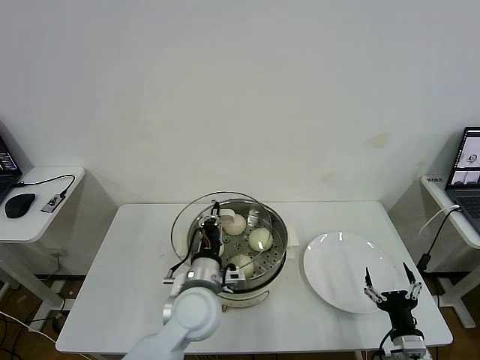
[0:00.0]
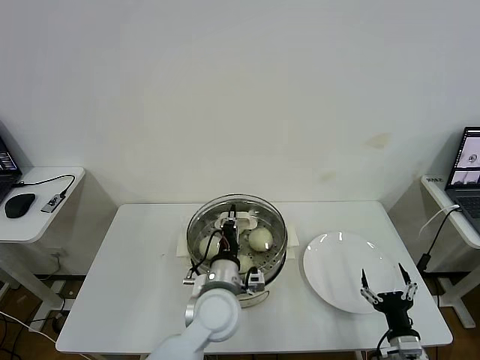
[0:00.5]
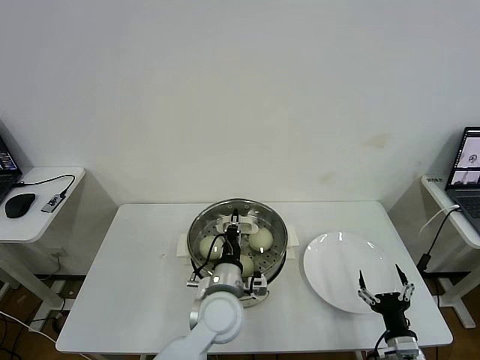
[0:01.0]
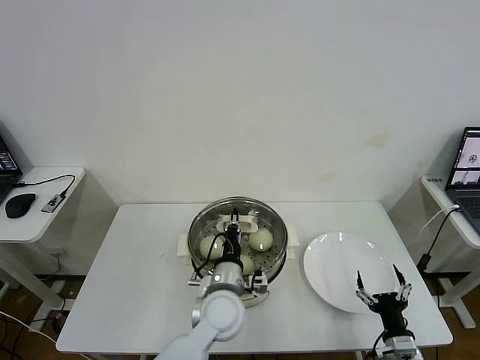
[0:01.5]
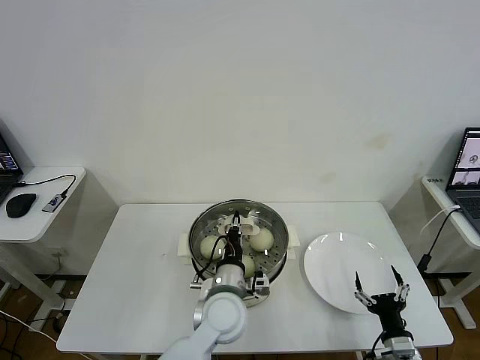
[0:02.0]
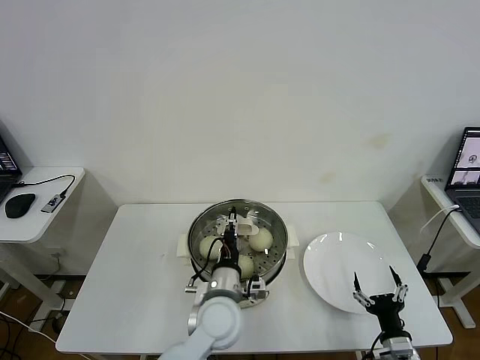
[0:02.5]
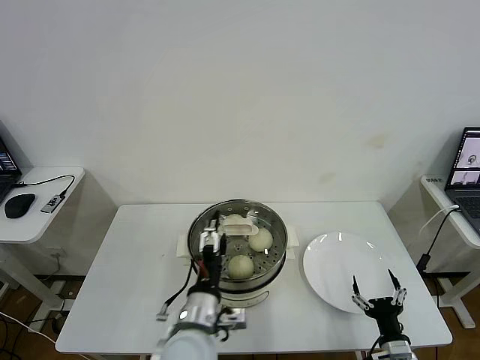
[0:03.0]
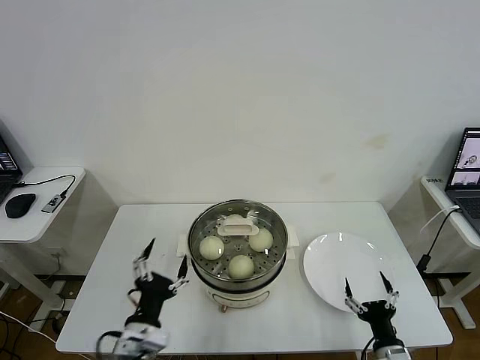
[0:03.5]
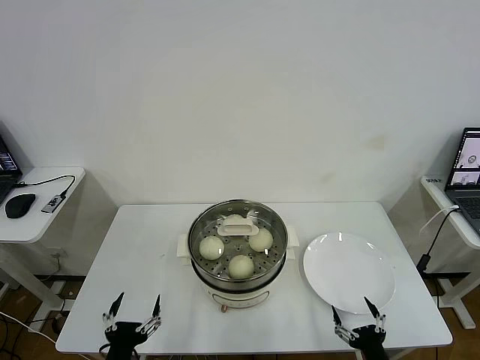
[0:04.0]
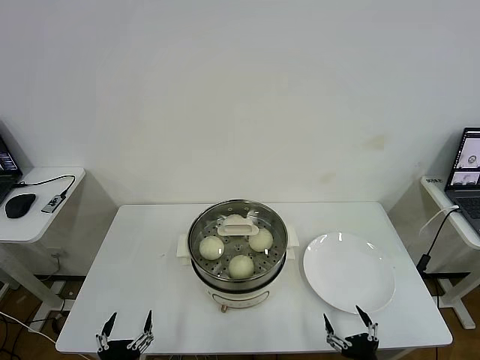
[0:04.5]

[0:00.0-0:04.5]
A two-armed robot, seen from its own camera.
Task of the whole recording: take steamed baozi put them in steamer then cover it.
Step, 0:00.0 to 0:03.0: Place the pot lid on the steamer with left gripper.
0:00.0 to 0:02.0: The left gripper goes roughly 5 cm to the right.
0:02.0 to 0:04.5: The right gripper heads backward, covering some 5 cm. Meanwhile the left gripper travels to the left and backward by some 30 cm, and opens its fingers.

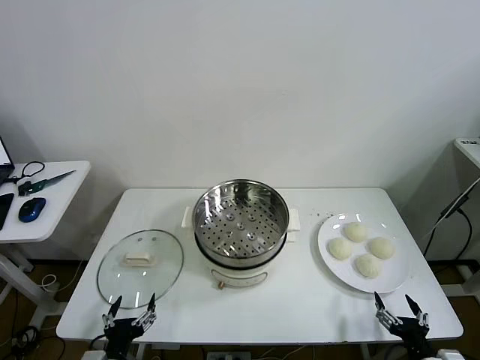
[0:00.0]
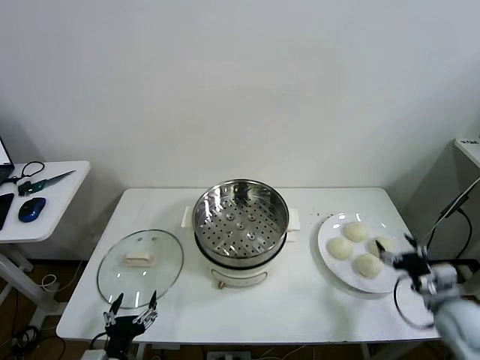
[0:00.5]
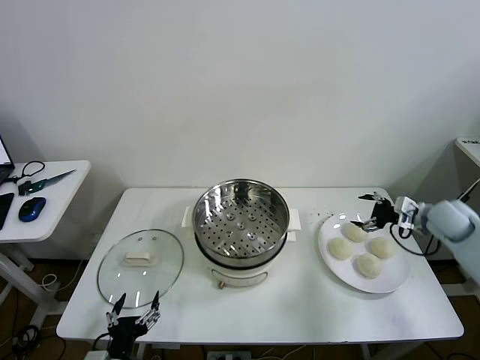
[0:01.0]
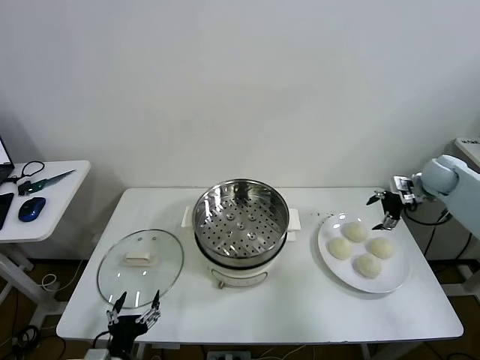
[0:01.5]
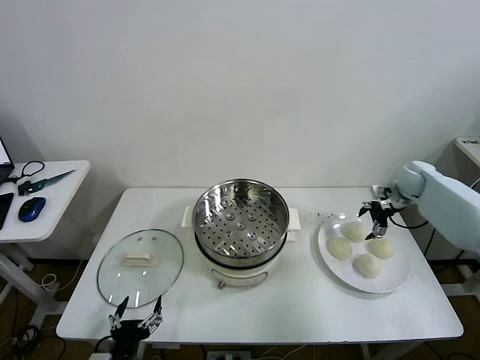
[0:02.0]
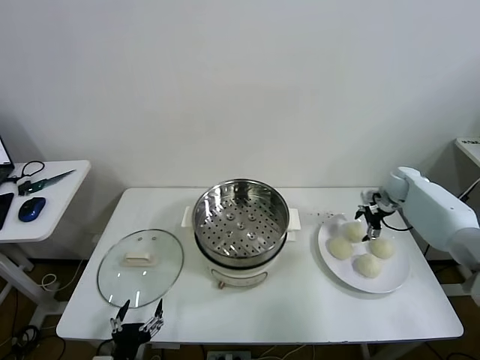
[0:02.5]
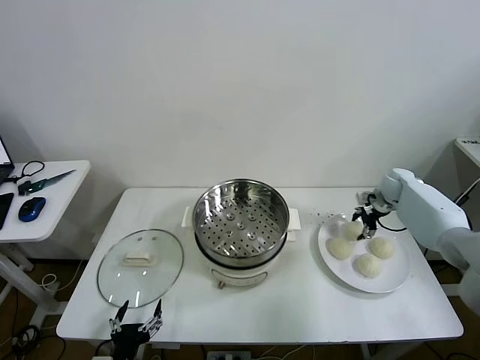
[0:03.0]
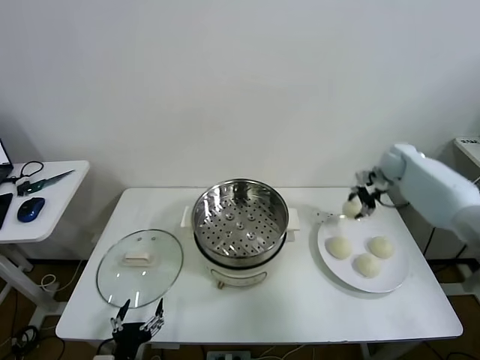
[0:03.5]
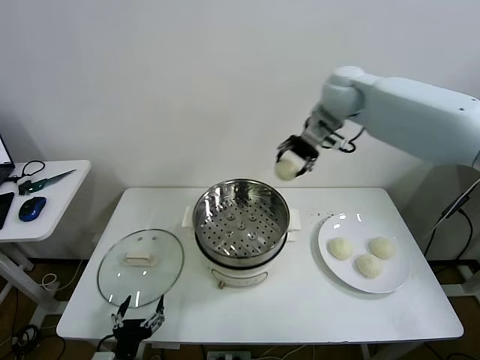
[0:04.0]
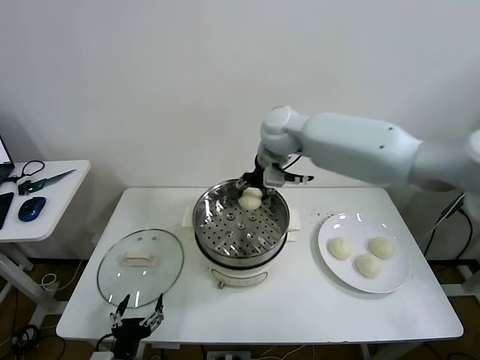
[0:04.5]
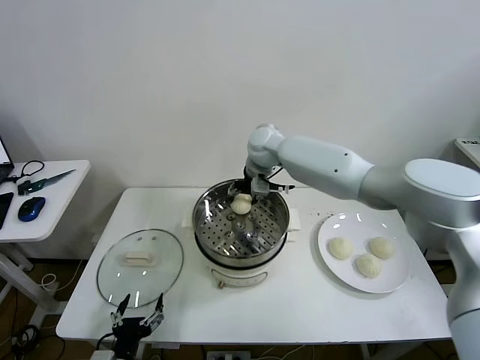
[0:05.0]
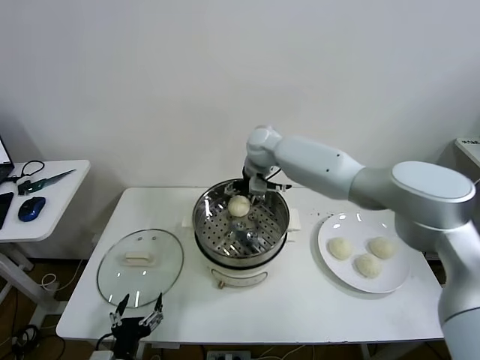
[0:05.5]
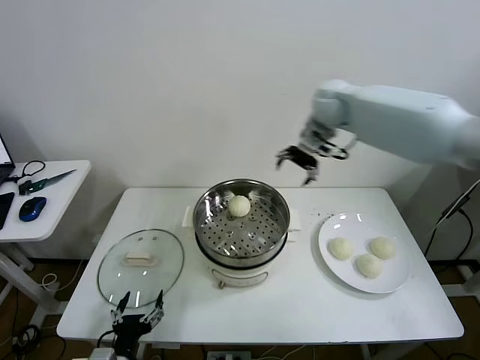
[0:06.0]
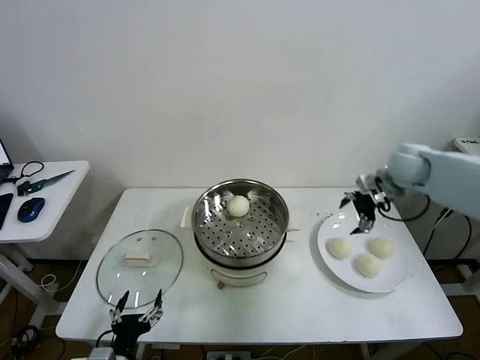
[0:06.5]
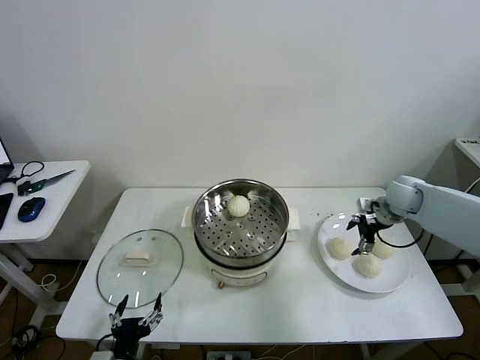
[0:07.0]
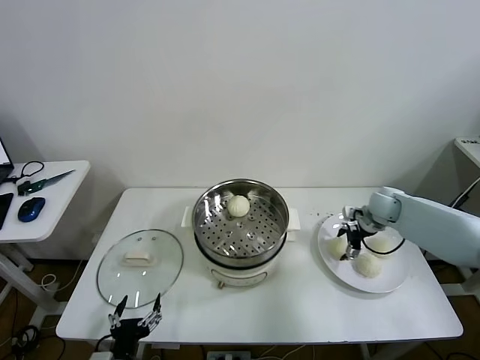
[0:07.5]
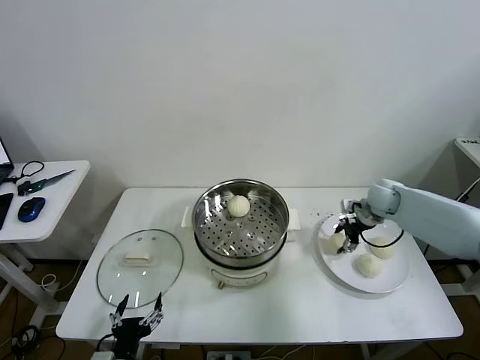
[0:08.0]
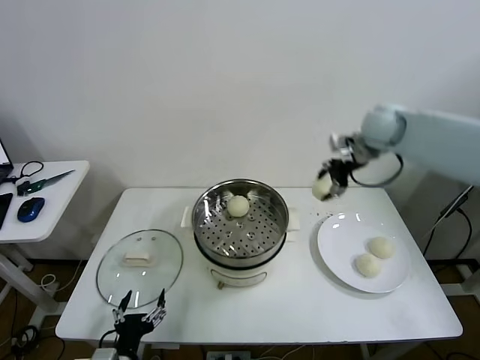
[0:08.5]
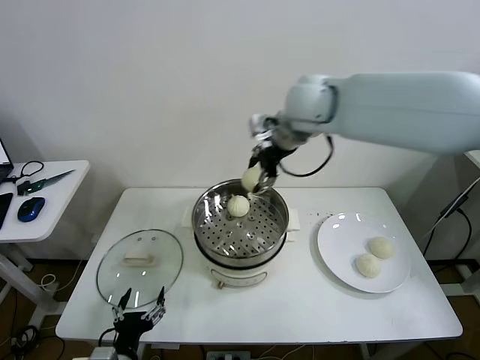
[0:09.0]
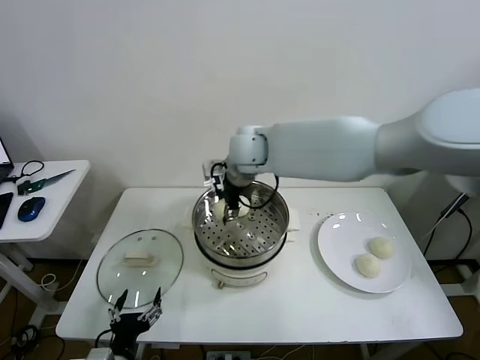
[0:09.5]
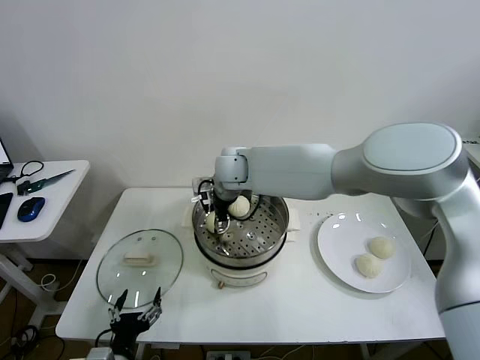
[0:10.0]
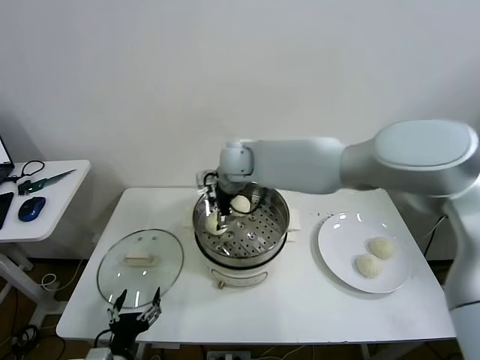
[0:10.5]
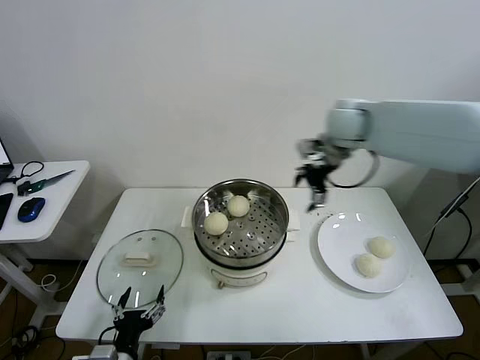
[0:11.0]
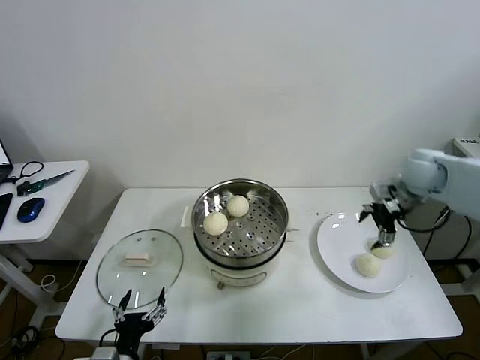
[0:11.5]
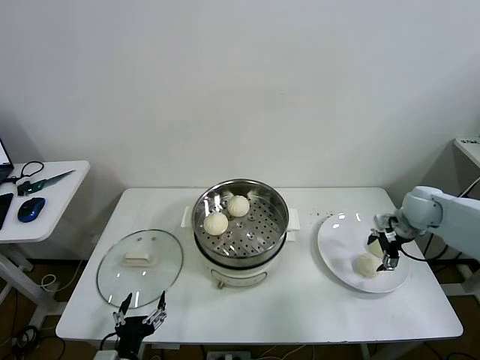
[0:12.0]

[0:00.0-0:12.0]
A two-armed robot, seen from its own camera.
Task of the whole recording: take steamed baozi put them in steamer then cover it.
Step, 0:00.0 to 0:03.0: Grasp the baozi in the plate with right gripper.
Step, 0:03.5 to 0:05.5: Place the baozi on the steamer with right gripper.
Step, 0:06.0 to 0:07.5: Grasp the baozi in the plate with right gripper.
Step, 0:08.0 to 0:10.0: Place the baozi on the steamer with right gripper.
0:02.0 to 0:04.0: The right gripper is displaced to the left and upward by about 40 cm, and closes its fingers.
0:04.0 to 0:06.0: The right gripper travels to the right by roughly 15 cm, and opens its fingers.
0:06.0 to 0:08.0: The right gripper moves downward and to the right, some 20 cm, and closes.
0:08.0 to 0:10.0: The right gripper travels to the left by approximately 40 cm.
0:10.0 to 0:12.0: The right gripper heads to the right, covering approximately 50 cm, and opens its fingers.

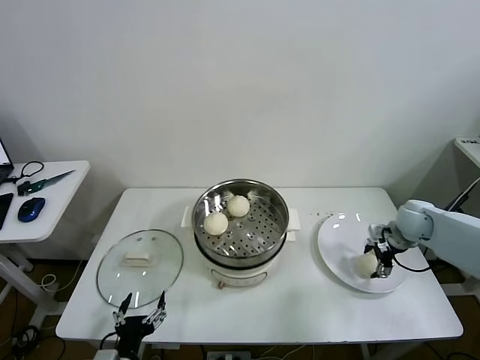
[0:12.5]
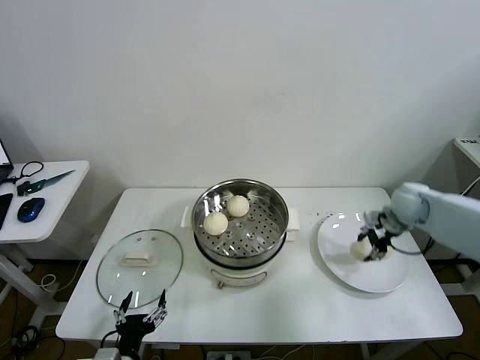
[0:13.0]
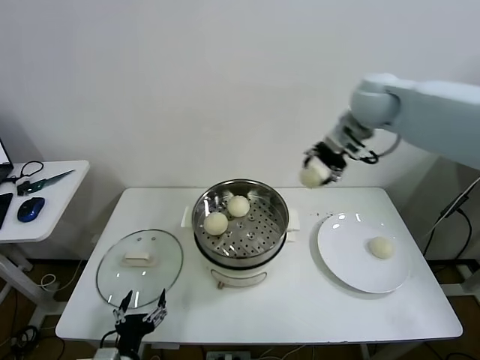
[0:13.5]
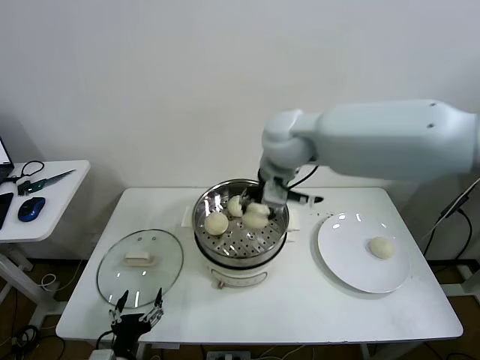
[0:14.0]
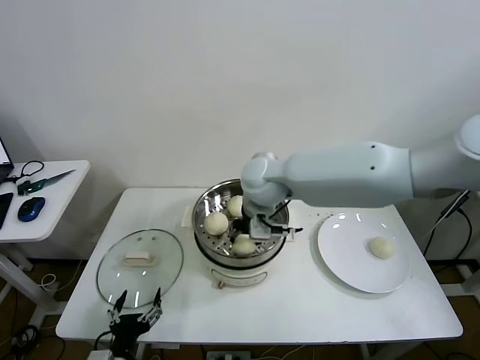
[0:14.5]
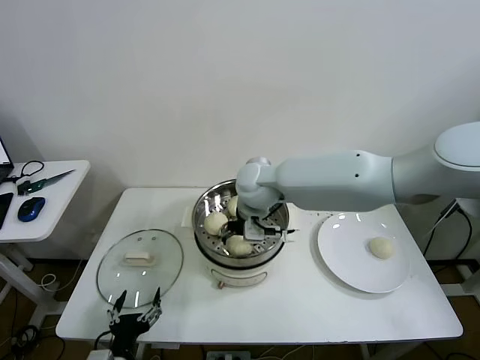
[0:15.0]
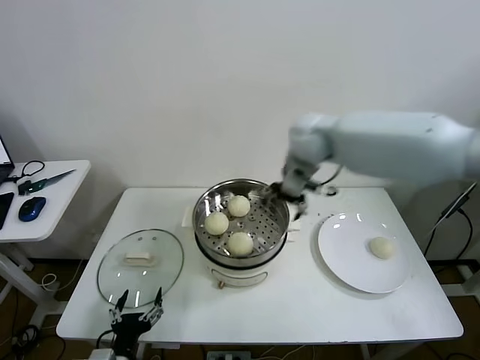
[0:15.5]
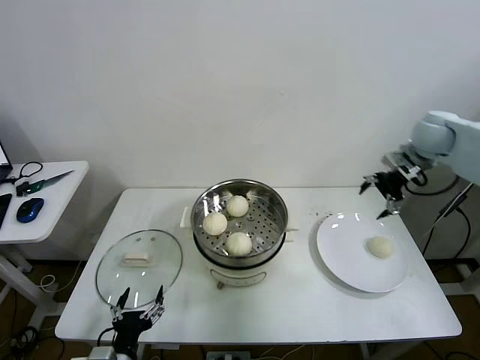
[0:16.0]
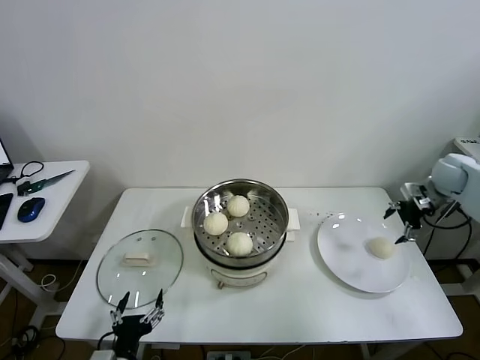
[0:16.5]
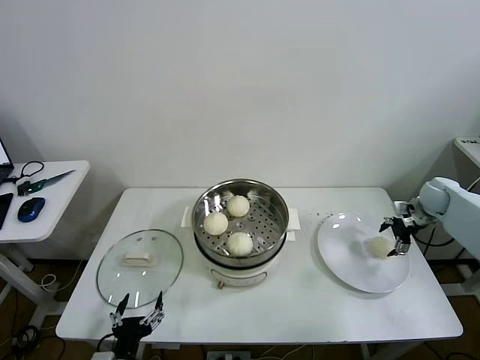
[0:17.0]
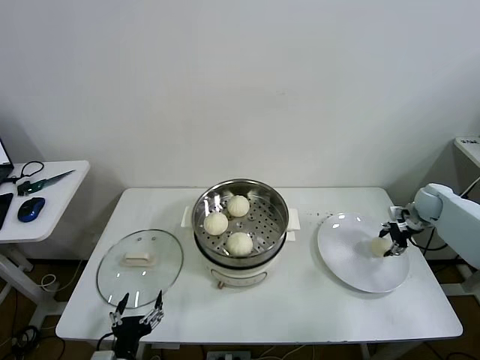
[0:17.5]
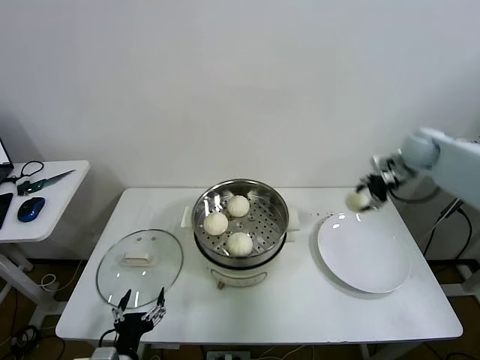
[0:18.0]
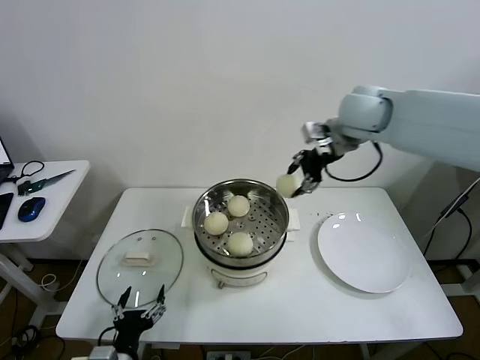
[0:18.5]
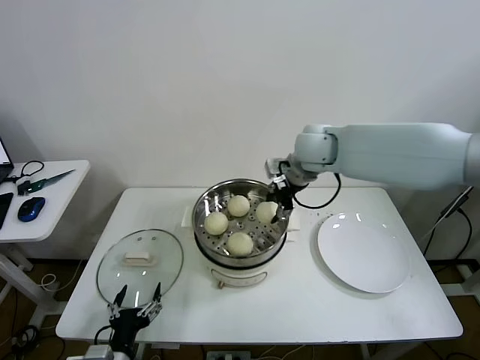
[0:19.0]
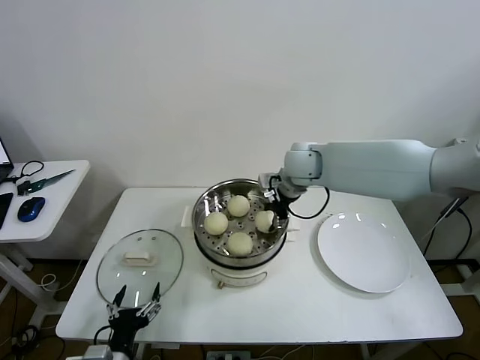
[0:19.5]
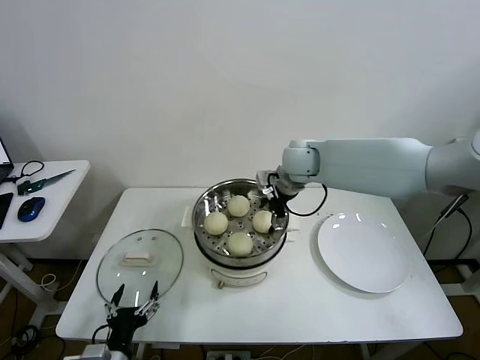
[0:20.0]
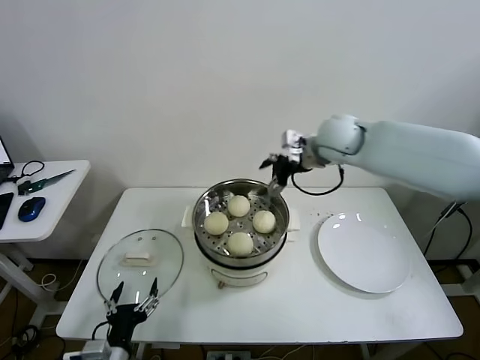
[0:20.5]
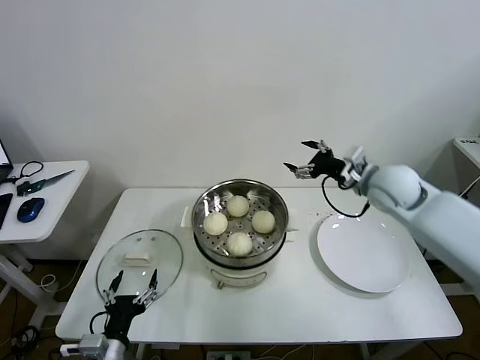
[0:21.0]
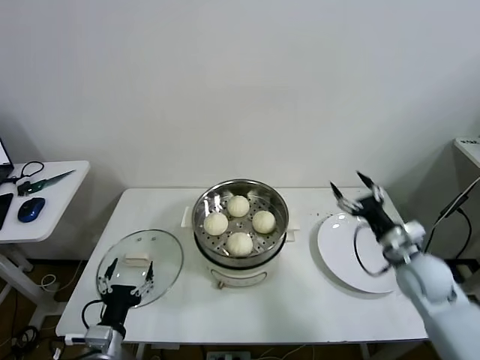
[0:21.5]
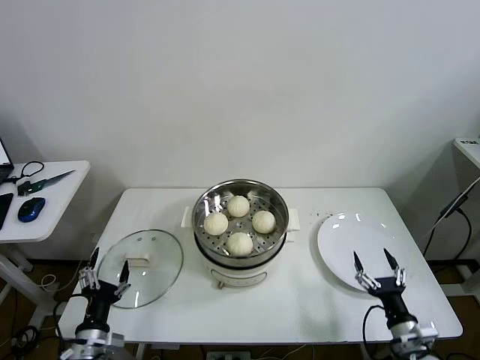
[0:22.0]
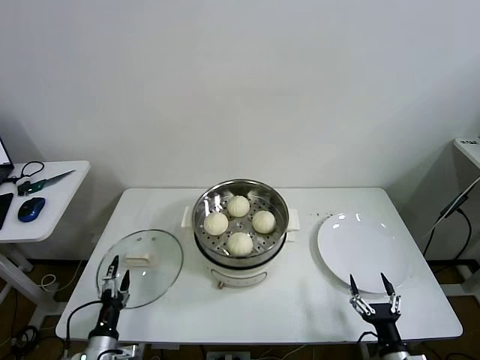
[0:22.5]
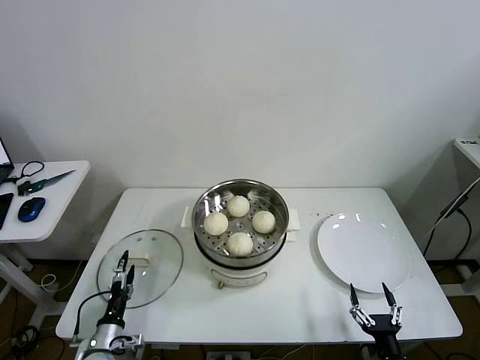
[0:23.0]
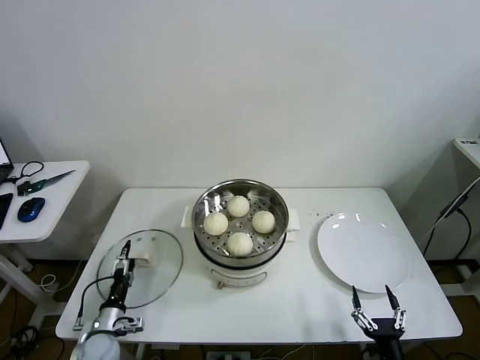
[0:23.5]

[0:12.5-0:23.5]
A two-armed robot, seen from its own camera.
Task of the whole recording: take steamed baozi put them in steamer then cover it.
Step, 0:13.0 to 0:15.0: Place the baozi on the steamer with right gripper.
Step, 0:15.5 to 0:17.0: Grasp the baozi in the plate with right gripper.
Step, 0:17.5 to 0:20.0: Place the baozi on the steamer with right gripper.
0:12.5 to 0:14.5: The right gripper shifts roughly 40 cm to the left.
0:14.5 to 0:16.0: The right gripper moves to the right, roughly 40 cm, and opens its fingers.
0:16.0 to 0:18.0: The right gripper moves to the left, approximately 5 cm, moves some 20 cm downward and comes back, and closes.
0:18.0 to 0:20.0: The right gripper shifts roughly 25 cm to the left, and opens.
0:20.0 to 0:21.5: The right gripper moves to the right, backward and downward, approximately 35 cm.
0:21.5 to 0:23.5: The right gripper is displaced backward and downward by about 25 cm. Meanwhile the left gripper goes about 20 cm downward, forward and to the left.
